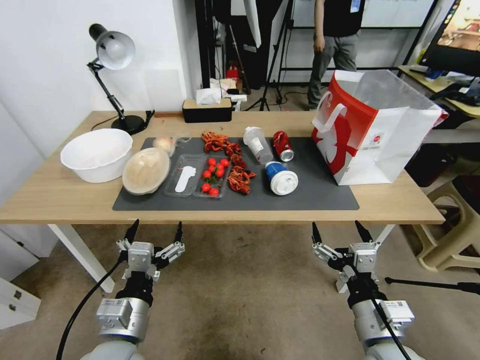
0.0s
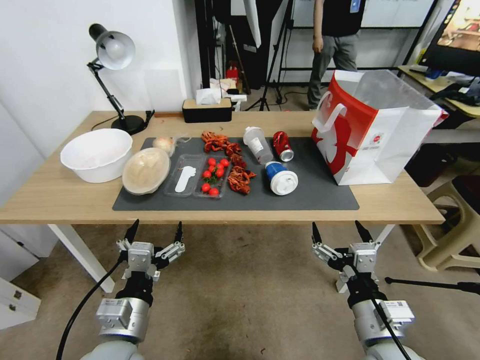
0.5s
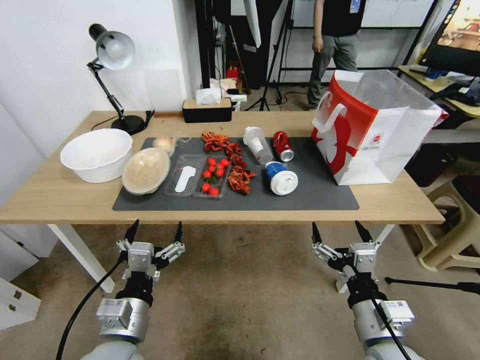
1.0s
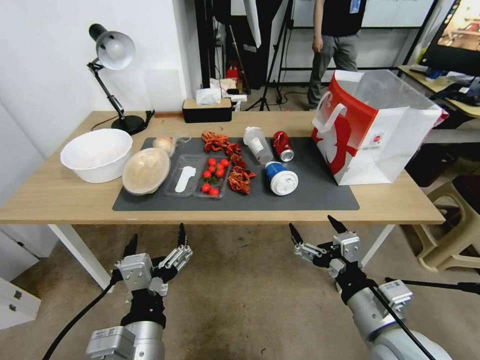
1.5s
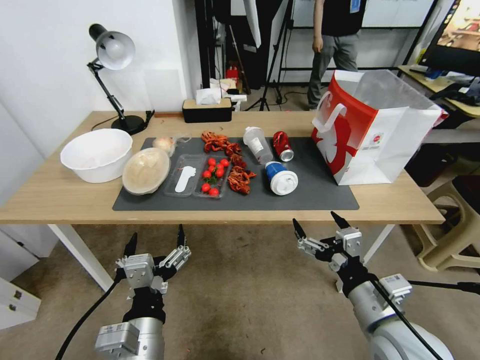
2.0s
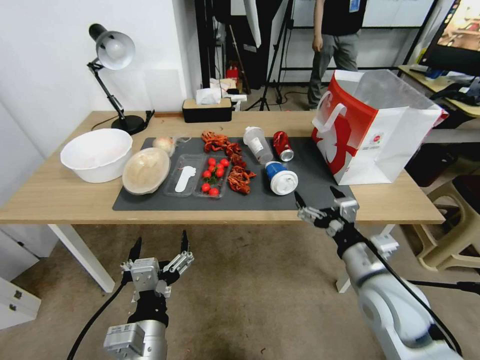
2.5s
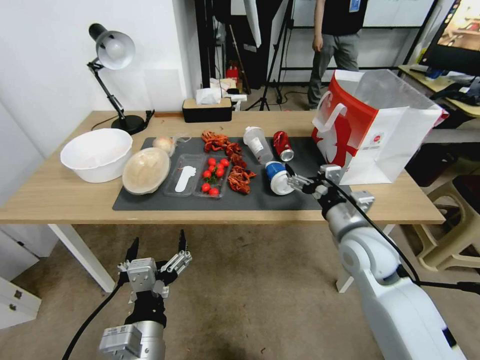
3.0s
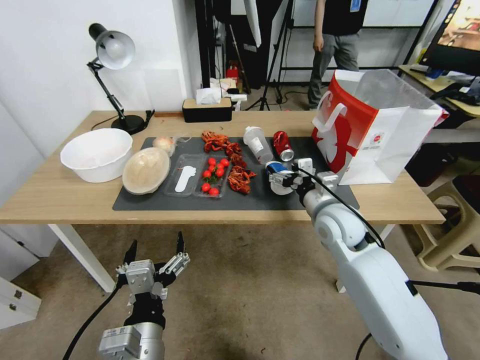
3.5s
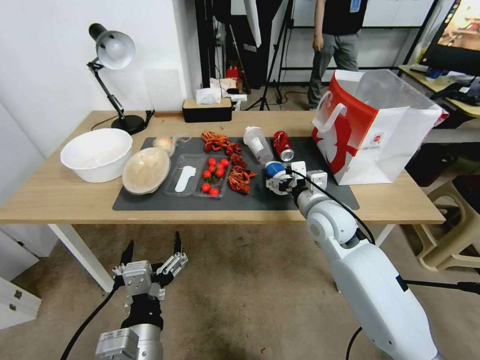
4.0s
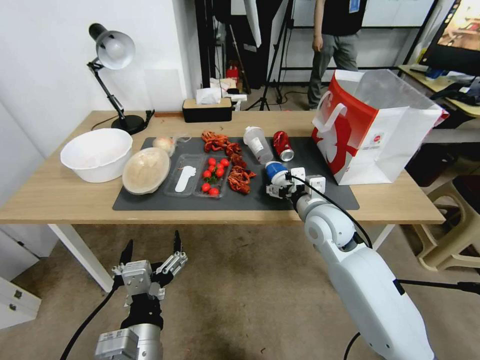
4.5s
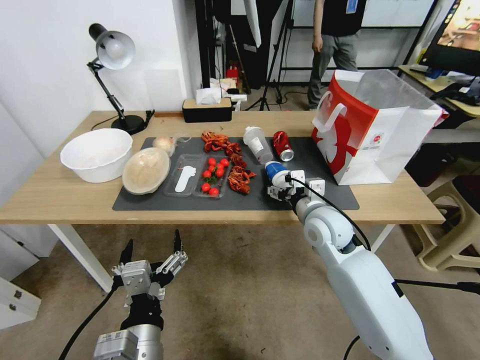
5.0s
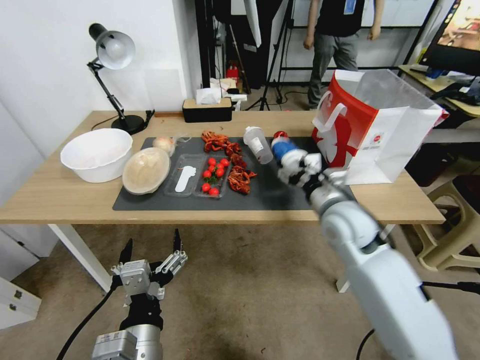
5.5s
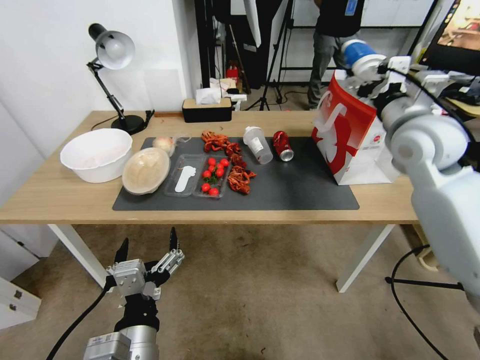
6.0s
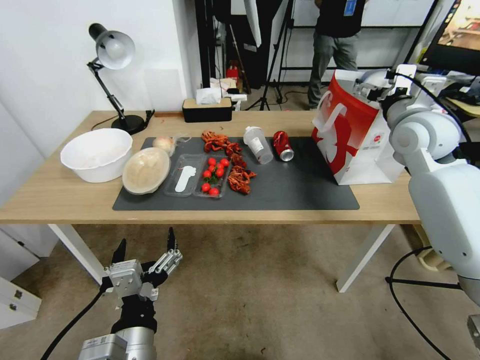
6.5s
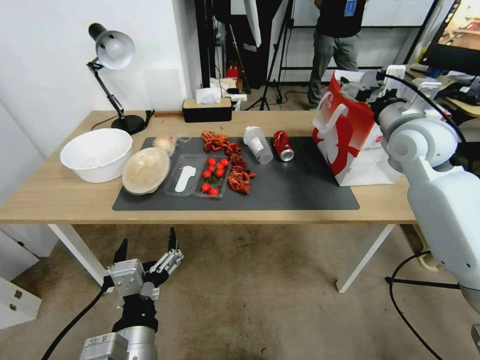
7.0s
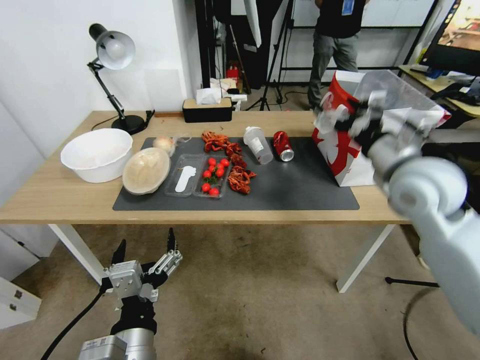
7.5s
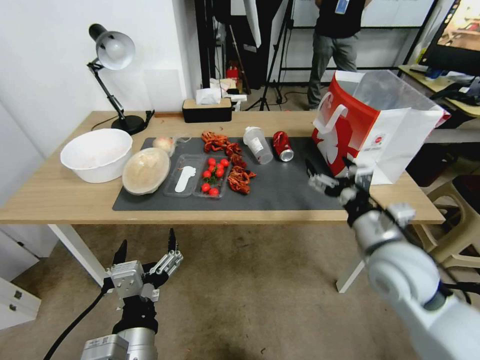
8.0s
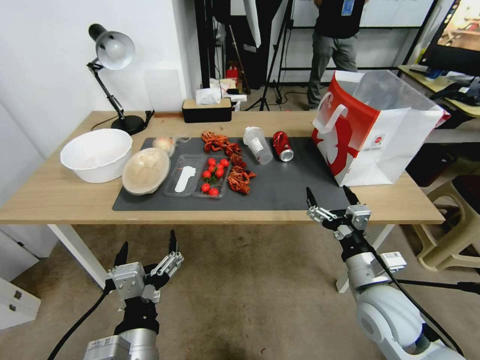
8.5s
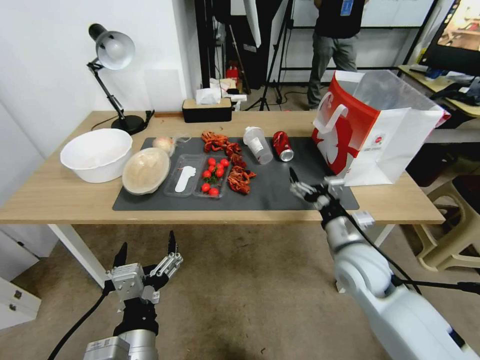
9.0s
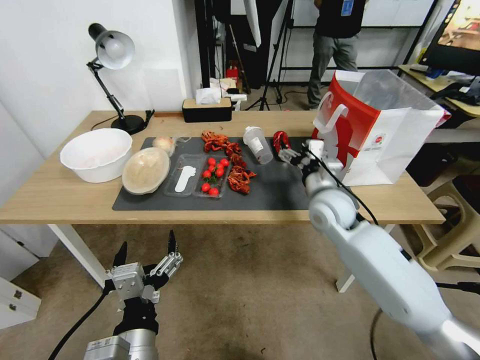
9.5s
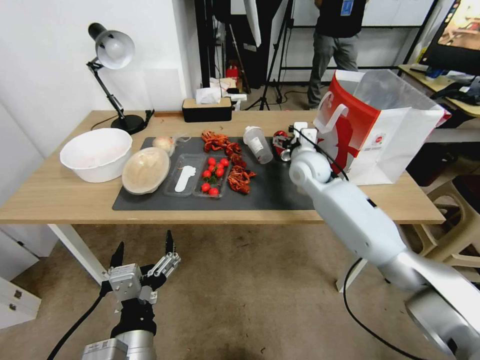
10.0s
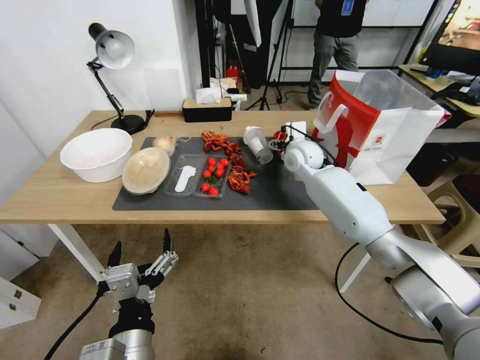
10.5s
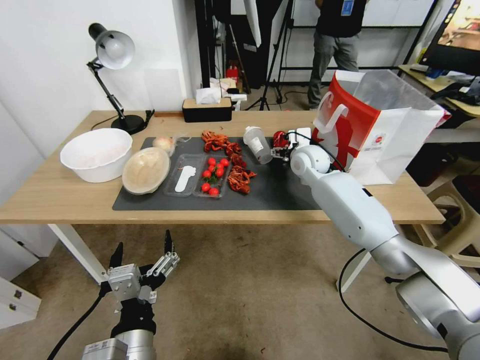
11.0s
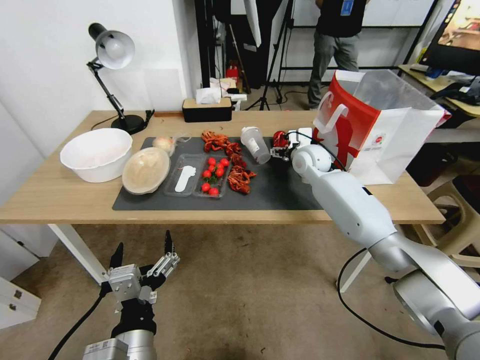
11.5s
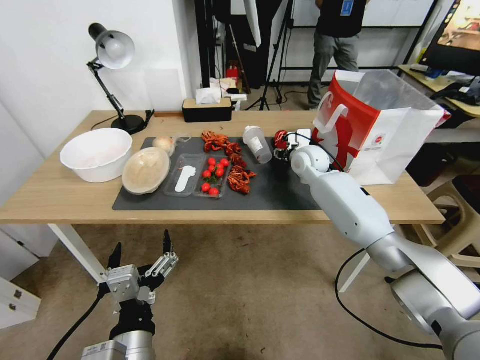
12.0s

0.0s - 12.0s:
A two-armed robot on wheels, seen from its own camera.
2.0s - 4.0s: The right gripper moves forward, roughly 20 cm.
4.0s - 6.0s: The right gripper heads upward and to the right, covering about 20 cm.
6.0s - 8.0s: The right gripper heads downward and backward, covering approximately 20 cm.
8.0s - 10.0s: The right gripper heads forward, covering some 25 cm.
10.0s - 12.0s: The right gripper changes place by approximately 5 cm, and closes its fingers.

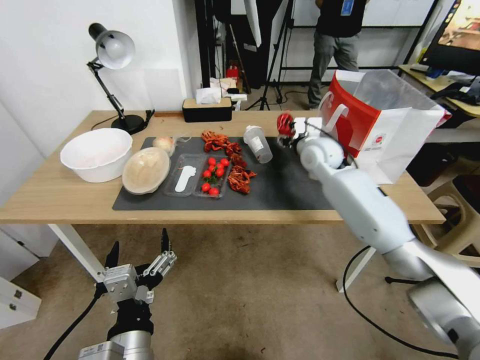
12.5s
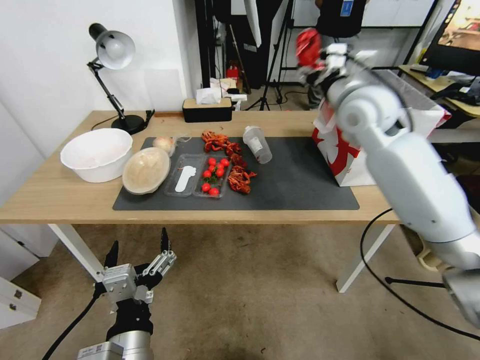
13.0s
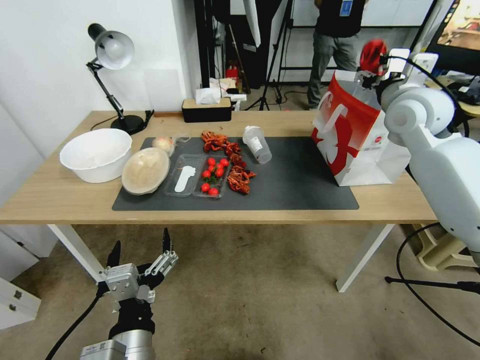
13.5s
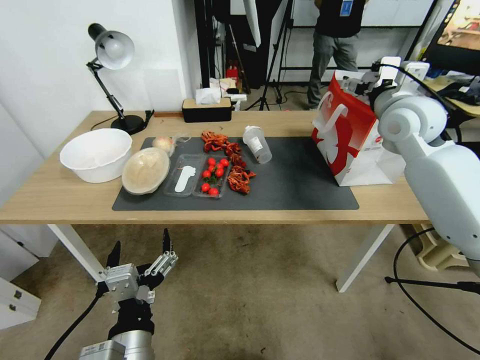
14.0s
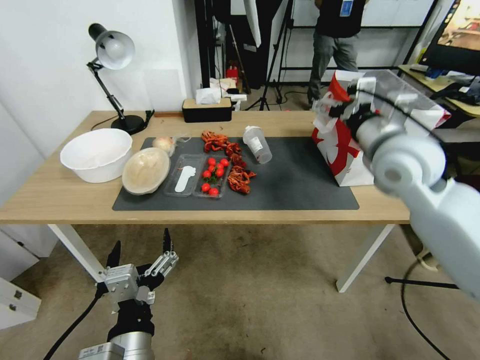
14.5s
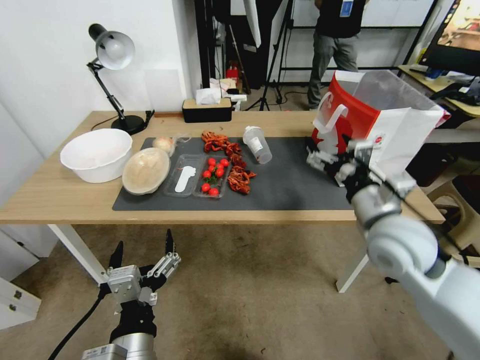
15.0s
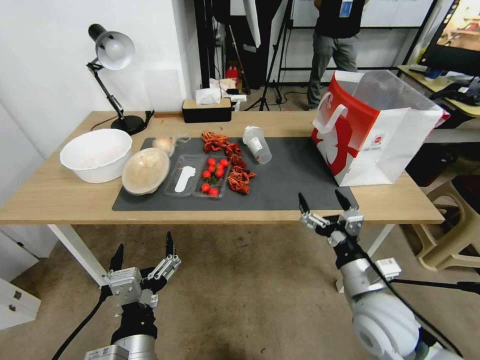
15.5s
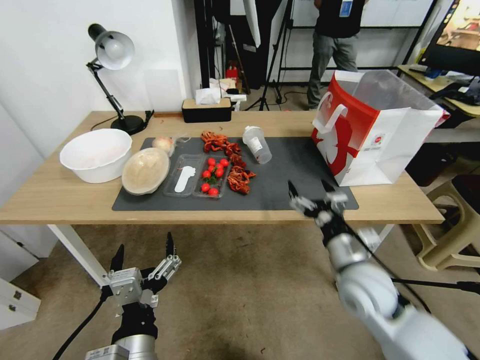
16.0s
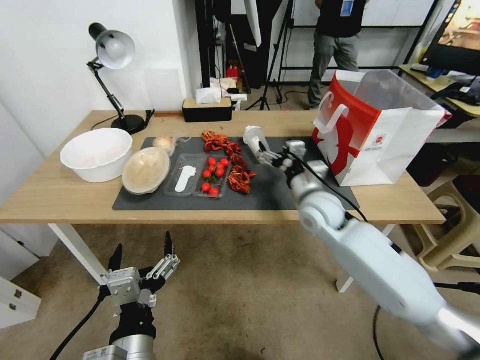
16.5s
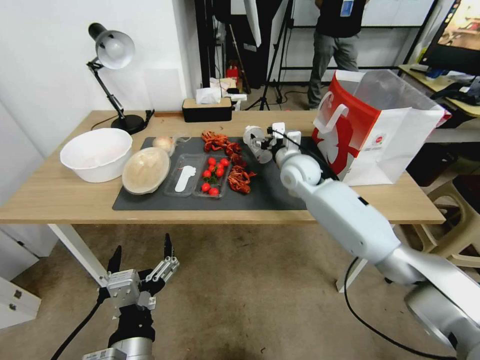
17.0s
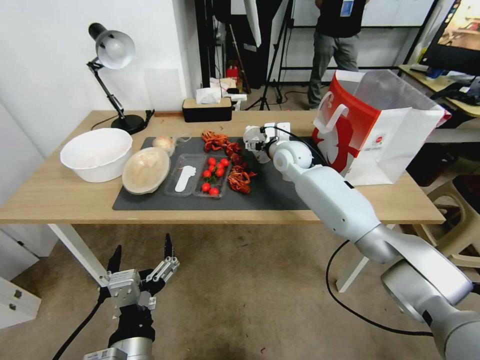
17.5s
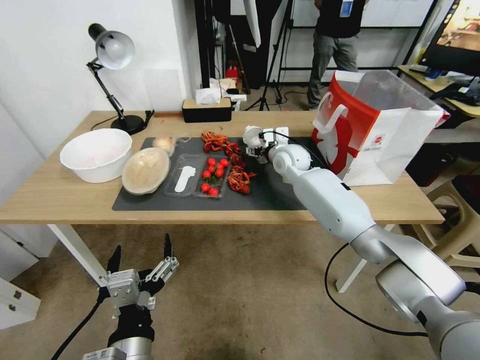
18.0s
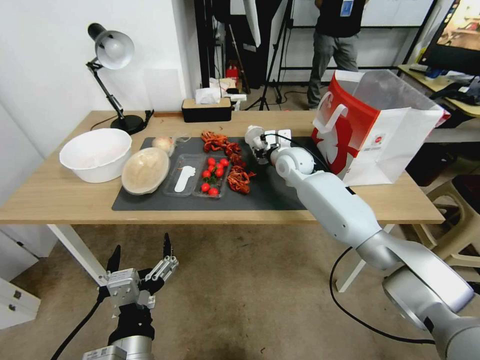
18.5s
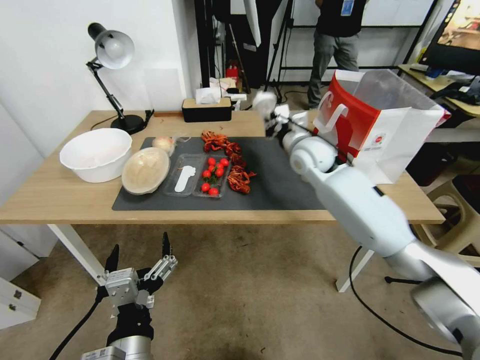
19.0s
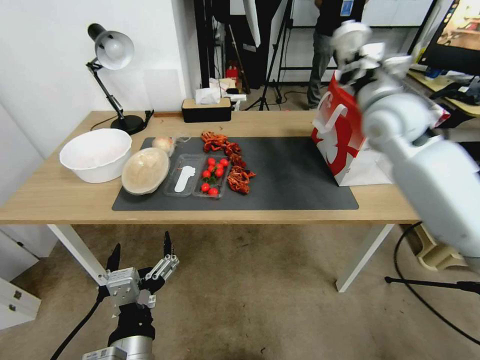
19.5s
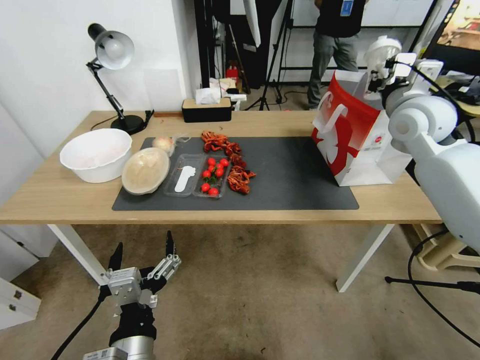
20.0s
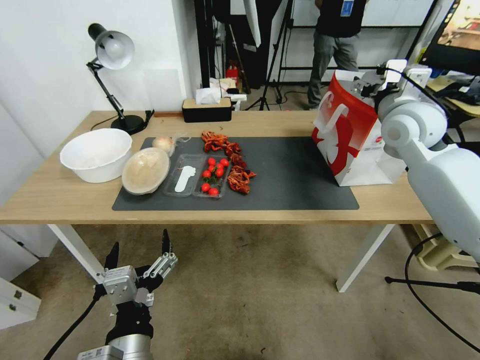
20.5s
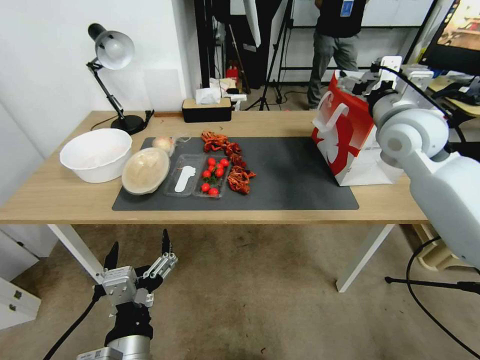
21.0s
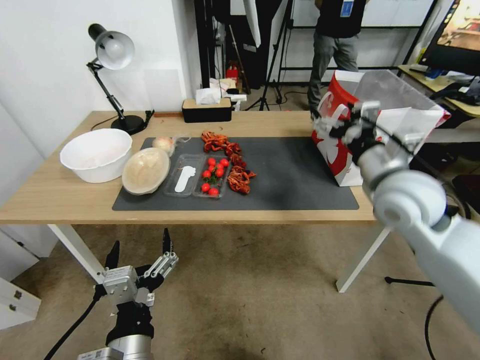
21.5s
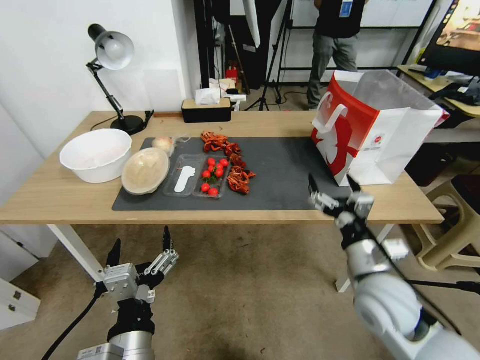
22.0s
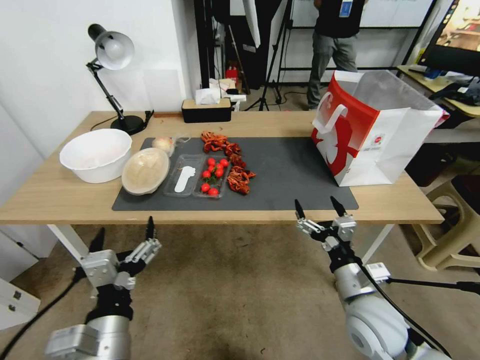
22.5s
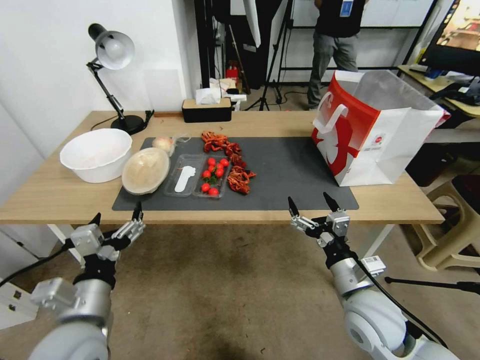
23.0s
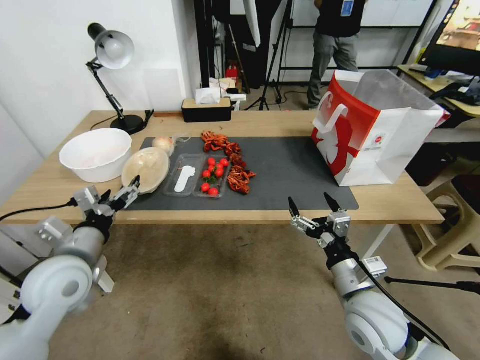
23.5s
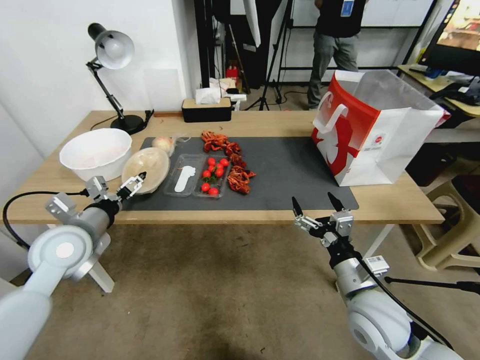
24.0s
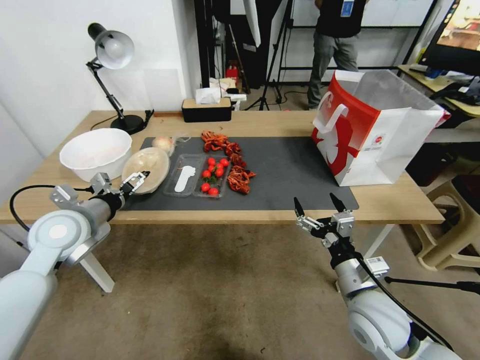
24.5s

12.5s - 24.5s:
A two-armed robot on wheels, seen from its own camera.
12.5s - 14.5s: The right gripper travels upward, backward and to the right by approximately 20 cm, and opens.
14.5s - 16.5s: The right gripper goes roughly 25 cm downward and to the left.
16.5s - 18.5s: The right gripper heads forward, covering roughly 15 cm, and closes up.
18.5s - 20.5s: The right gripper travels upward, to the right and backward by about 25 cm, and opens its fingers.
20.5s - 22.5s: The right gripper moves backward and downward, about 35 cm.
22.5s - 24.5s: The left gripper shifts some 30 cm forward and to the left.

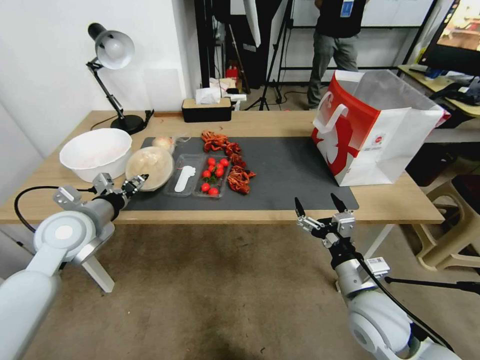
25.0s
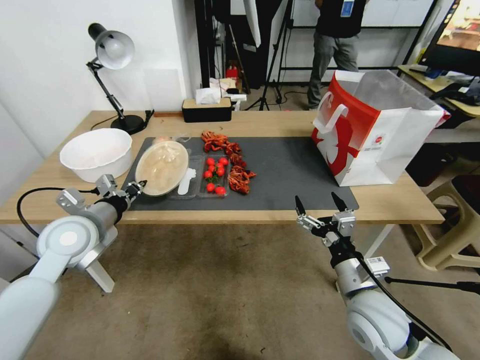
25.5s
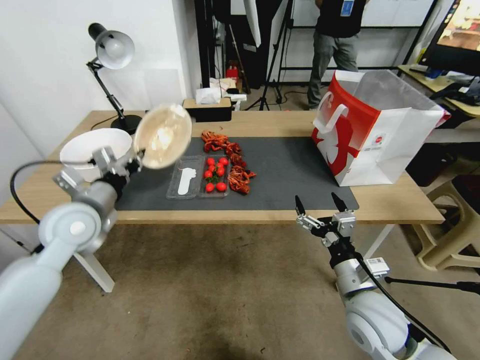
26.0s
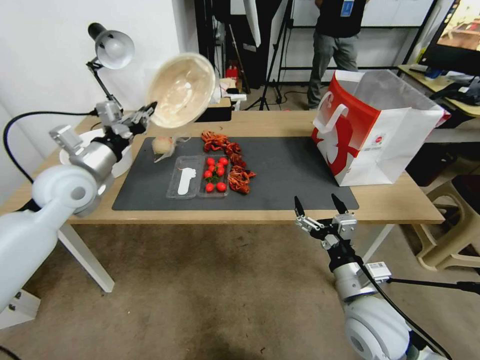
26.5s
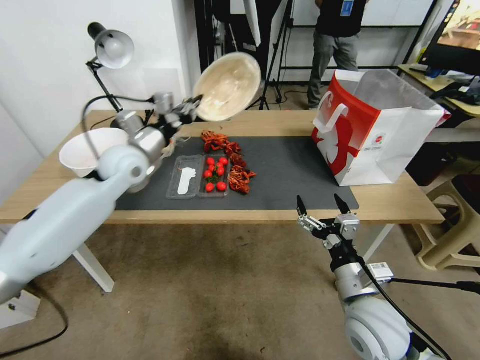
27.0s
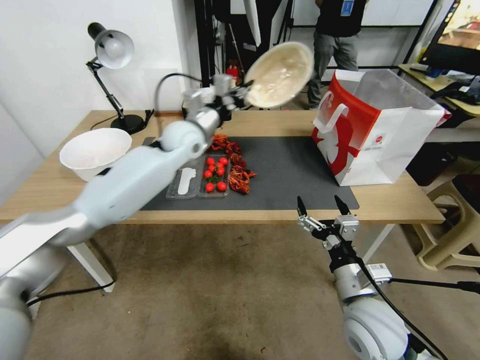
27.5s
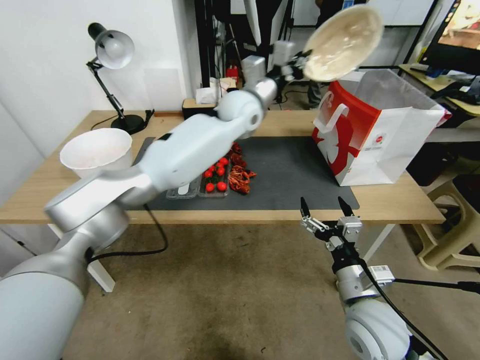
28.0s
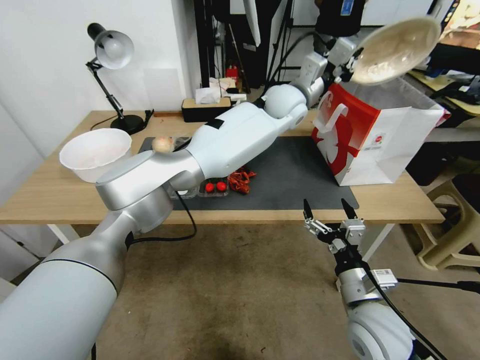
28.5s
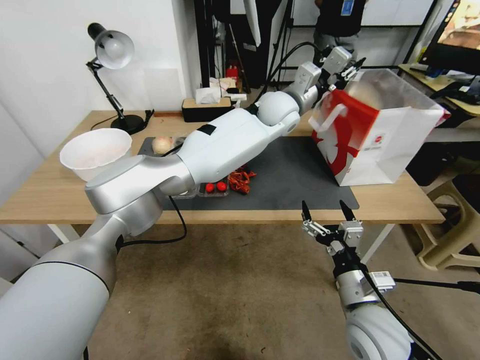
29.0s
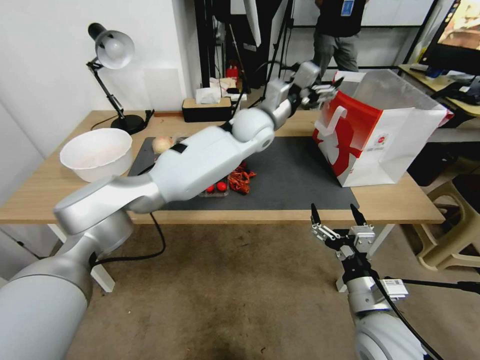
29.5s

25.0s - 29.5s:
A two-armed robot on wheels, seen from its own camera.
25.0s - 27.0s: The left gripper heads forward, to the right and upward, covering some 15 cm, and closes its fingers.
27.0s - 29.5s: The left gripper shifts about 30 cm to the right, and opens.
